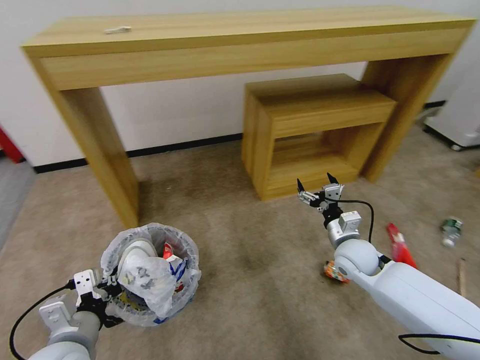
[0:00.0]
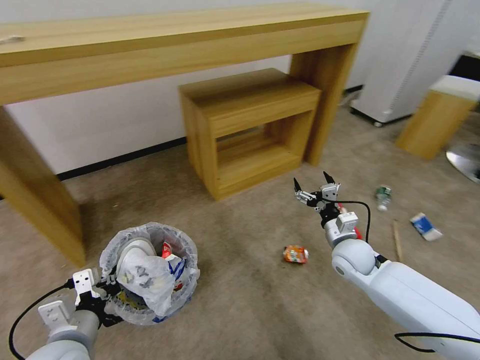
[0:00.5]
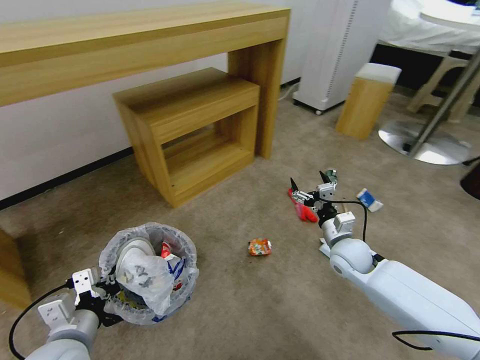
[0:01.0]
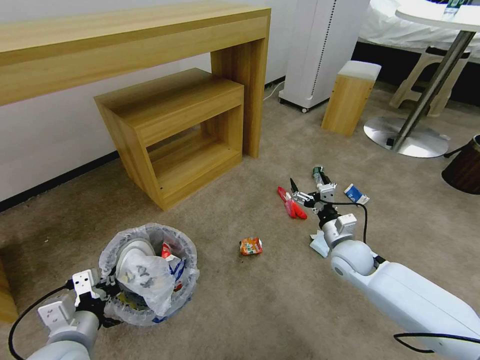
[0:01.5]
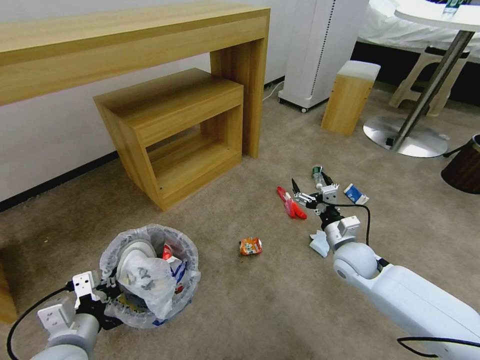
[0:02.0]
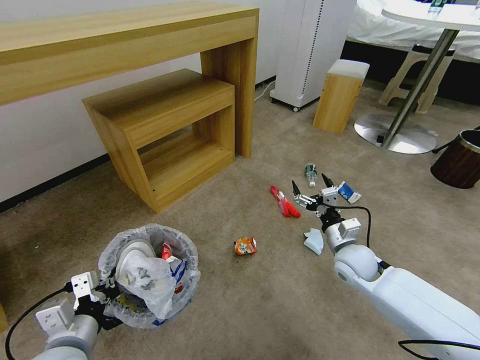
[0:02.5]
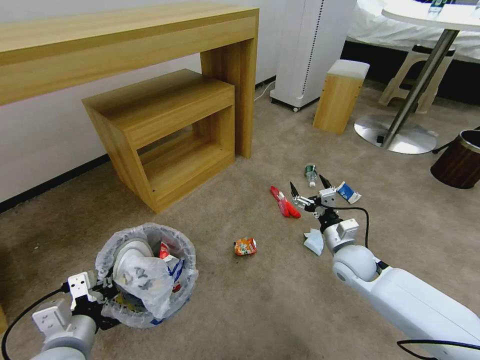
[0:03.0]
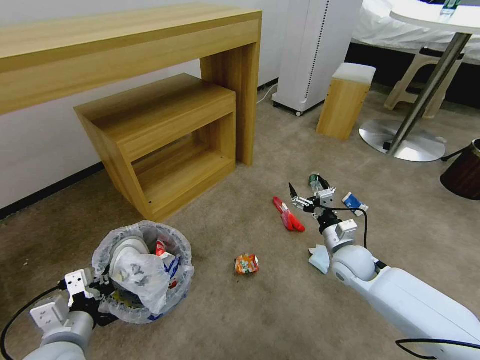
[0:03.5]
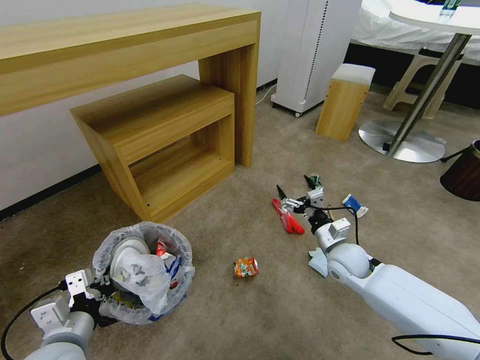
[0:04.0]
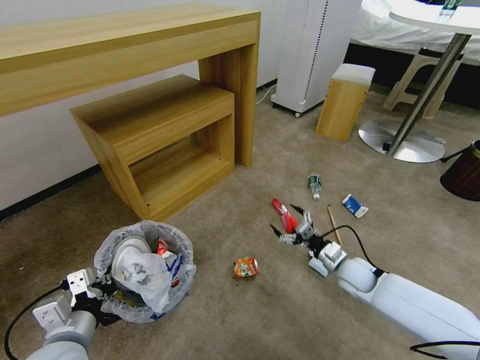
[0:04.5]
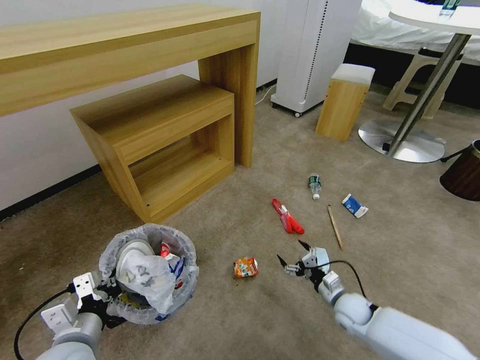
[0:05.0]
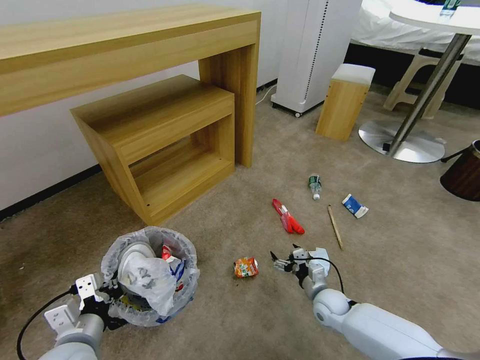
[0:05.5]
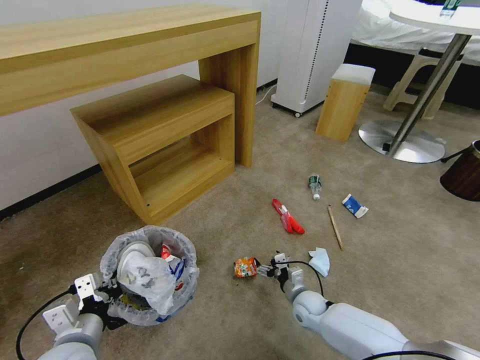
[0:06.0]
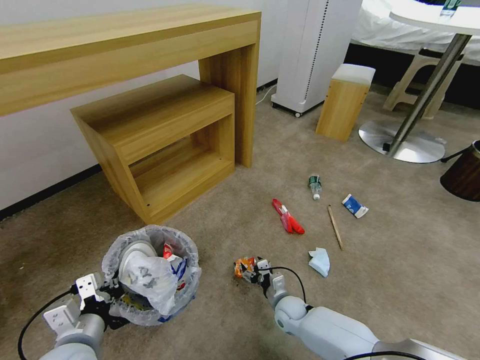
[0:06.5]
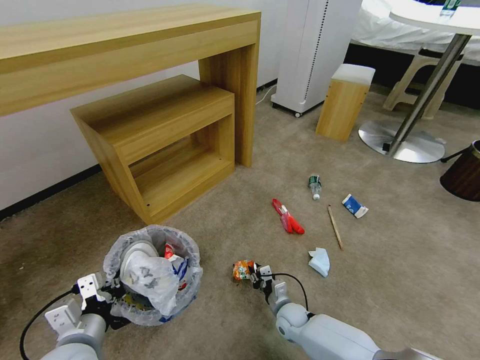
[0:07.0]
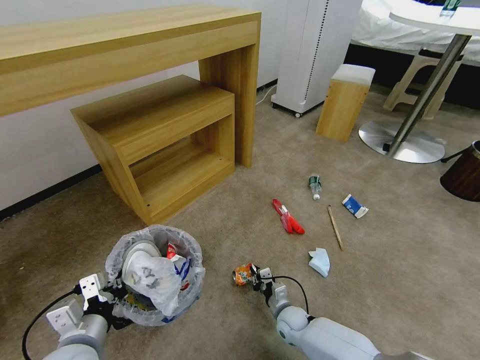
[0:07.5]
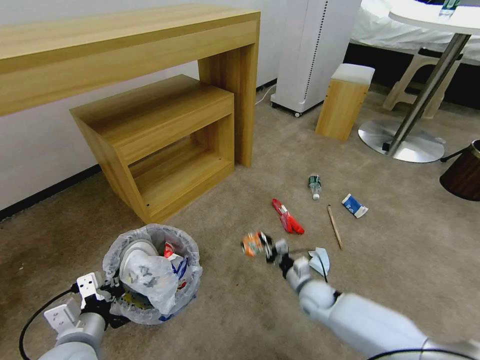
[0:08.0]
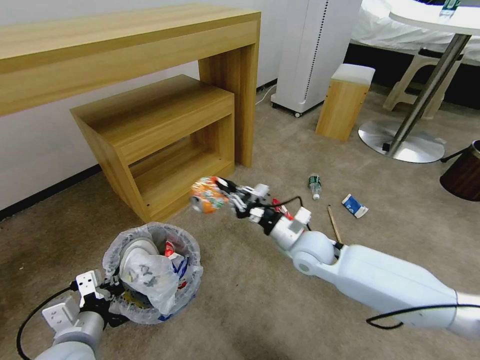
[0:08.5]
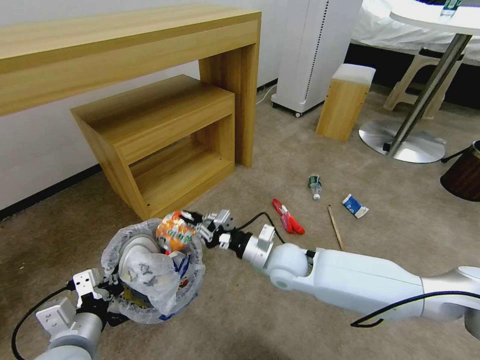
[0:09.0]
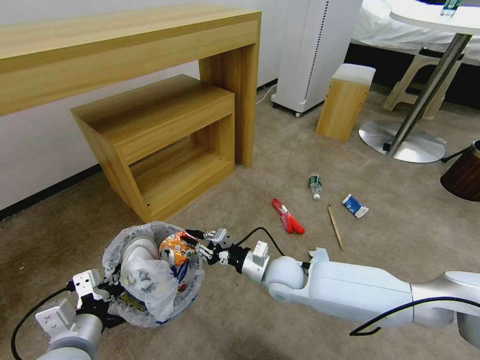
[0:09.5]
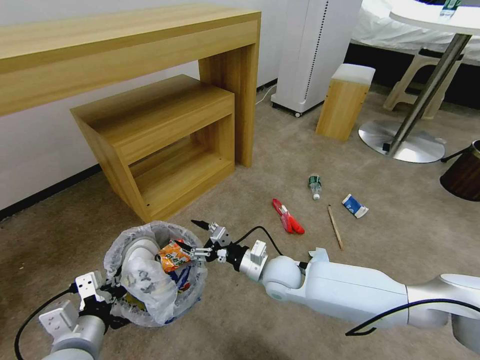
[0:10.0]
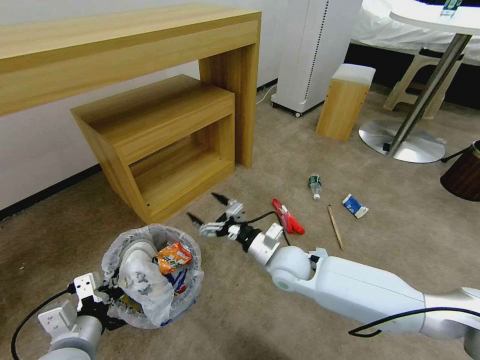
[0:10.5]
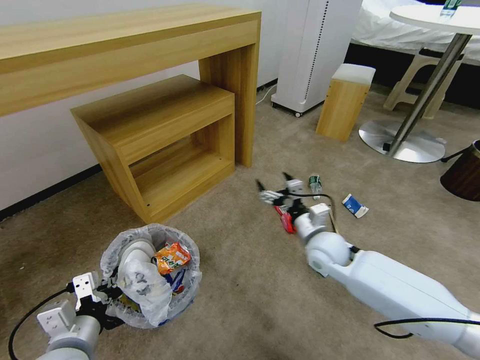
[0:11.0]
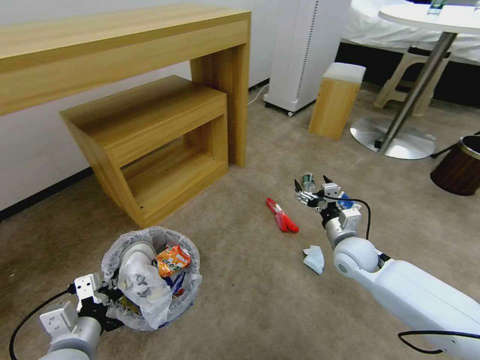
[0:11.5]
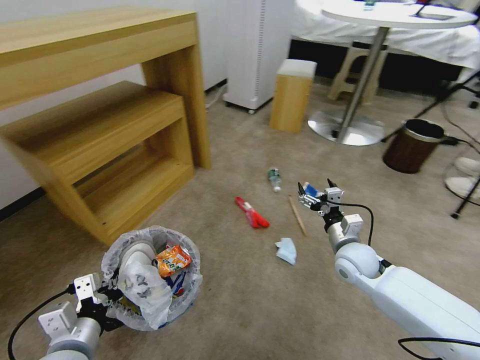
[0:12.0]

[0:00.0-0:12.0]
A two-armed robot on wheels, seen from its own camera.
Task of the whole recording: Pick up the trash bin and place the garbage on the floor into it.
0:04.0 to 0:06.0: The right gripper moves downward, approximately 20 cm.
0:06.0 to 0:08.0: The right gripper closes.
0:08.0 to 0:10.0: The right gripper heads upward and to the left, covering approximately 20 cm, and opens its fingers.
0:10.0 to 0:12.0: The right gripper heads to the right, covering roughly 20 cm.

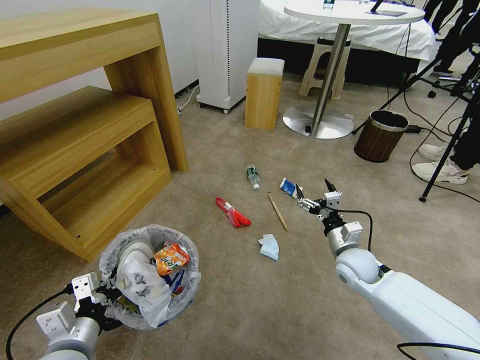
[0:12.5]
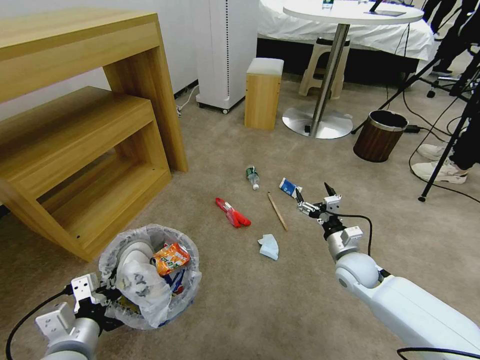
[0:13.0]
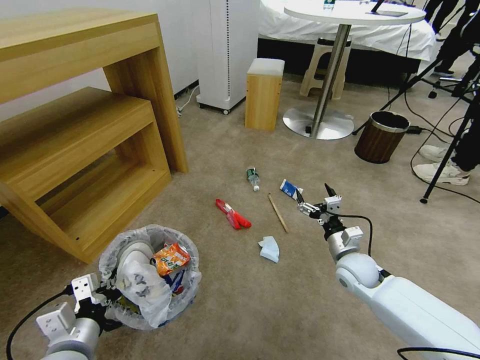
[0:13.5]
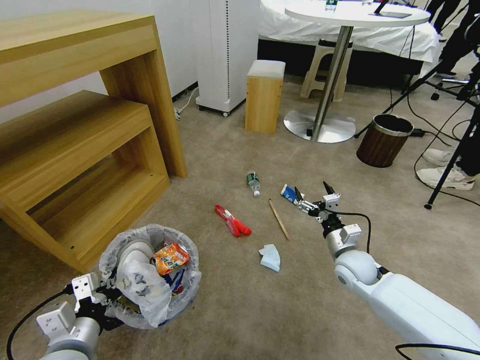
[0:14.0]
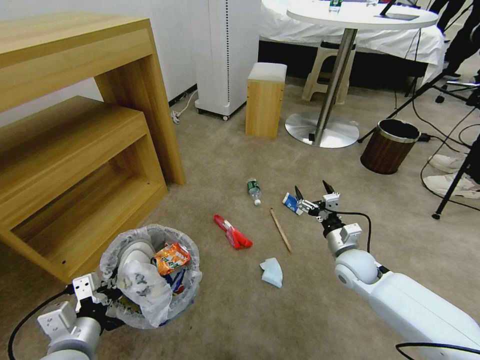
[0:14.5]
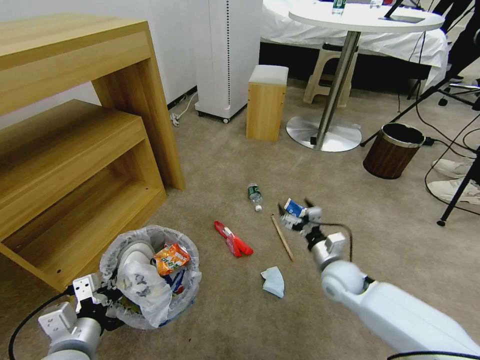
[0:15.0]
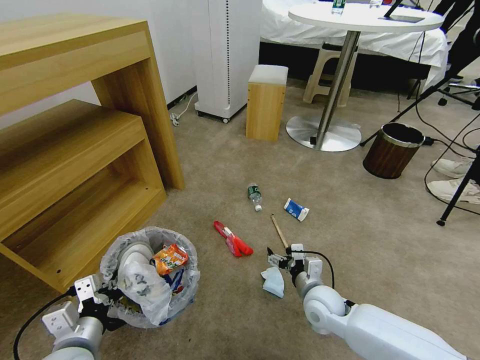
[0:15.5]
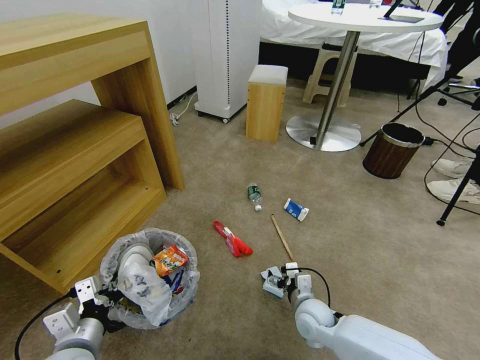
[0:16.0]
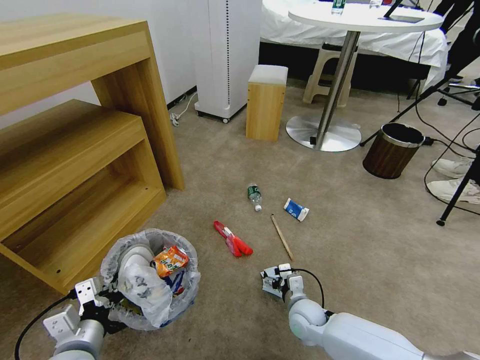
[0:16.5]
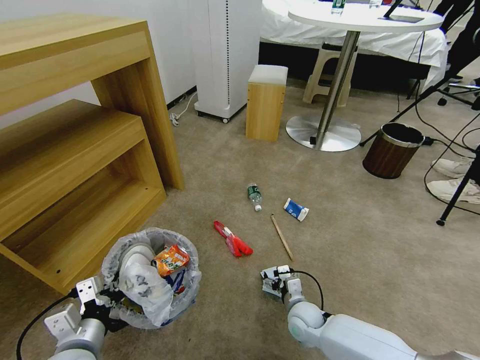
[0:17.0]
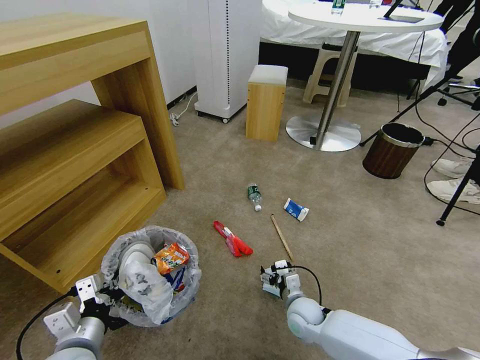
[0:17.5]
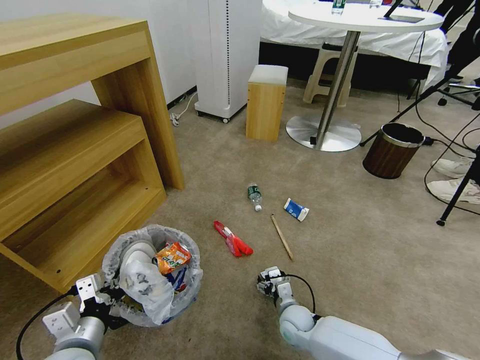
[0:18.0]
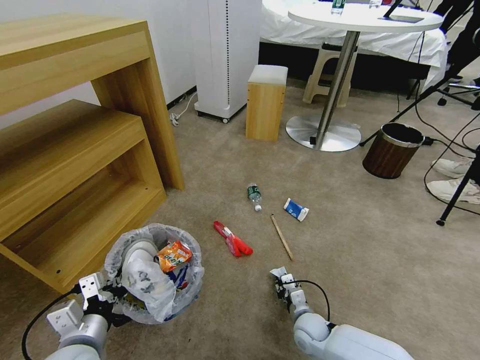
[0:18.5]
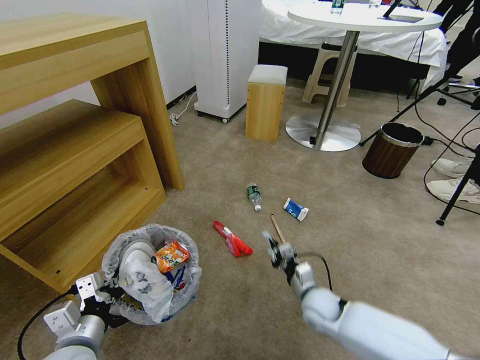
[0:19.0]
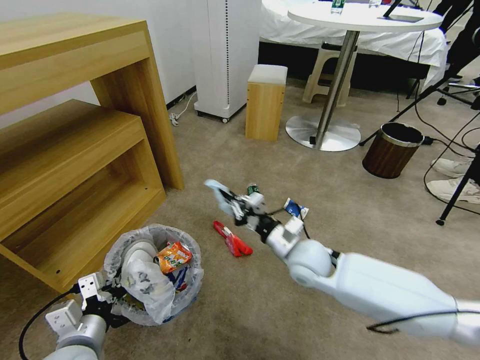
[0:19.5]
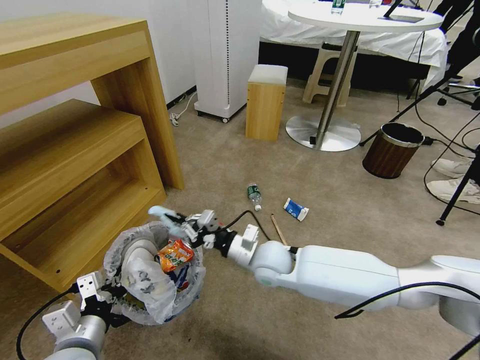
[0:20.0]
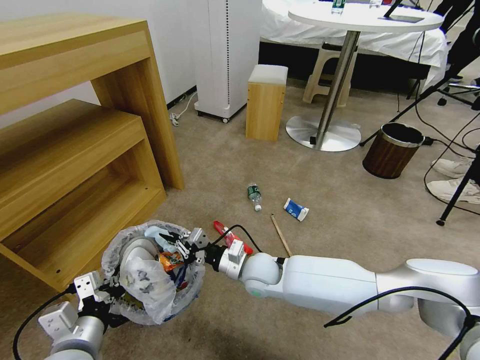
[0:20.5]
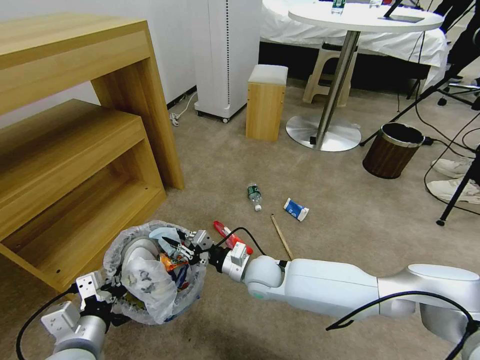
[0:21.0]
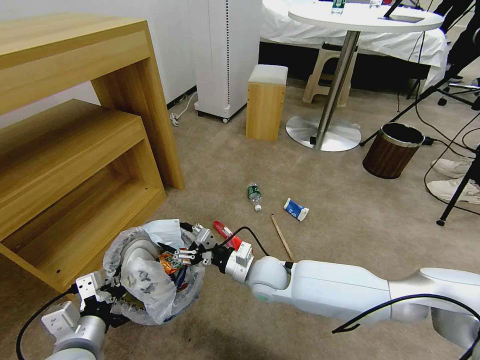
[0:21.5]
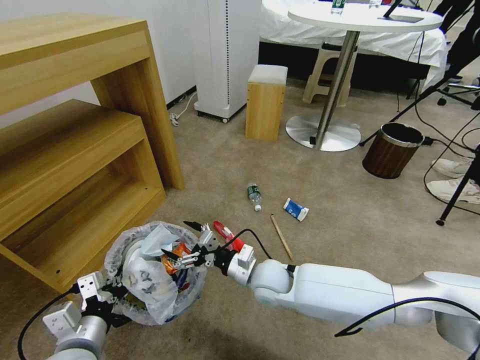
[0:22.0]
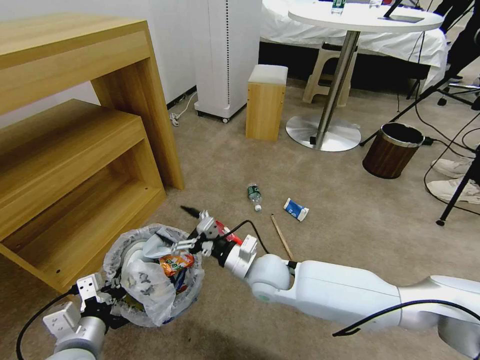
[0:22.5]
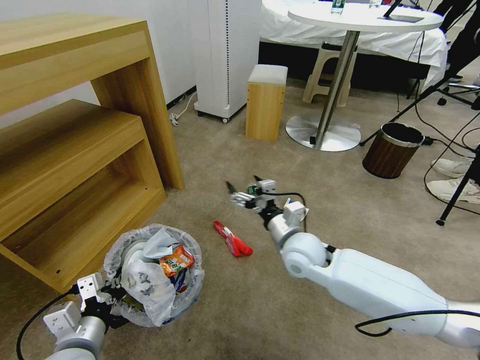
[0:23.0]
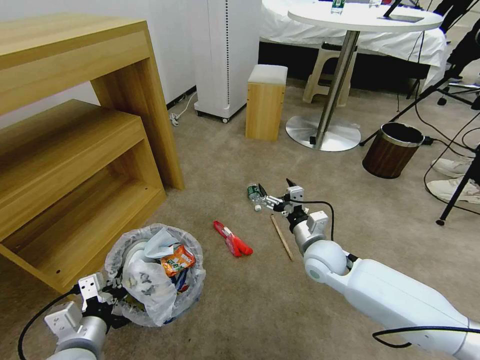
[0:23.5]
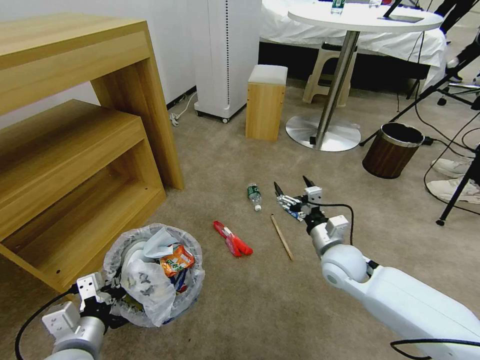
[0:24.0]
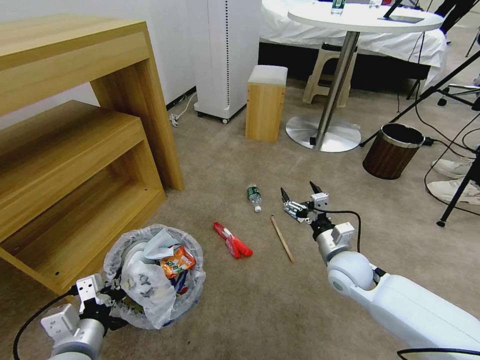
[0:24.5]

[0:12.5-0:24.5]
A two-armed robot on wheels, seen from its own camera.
Task of the whole recording: Pick up the trash bin and place the garbage on the floor into it.
0:14.5 to 0:16.5: The right gripper travels downward, to the left and backward by roughly 20 cm.
0:16.5 to 0:18.5: The right gripper shifts by approximately 5 cm, and closes its fingers.
0:18.5 to 0:20.5: The right gripper is displaced upward, to the left and forward by some 25 cm, and closes its fingers.
0:20.5 to 0:22.5: The right gripper opens.
0:22.5 to 0:24.5: The right gripper shifts some 20 cm to the right.

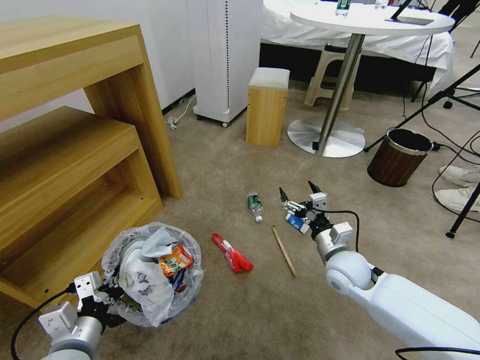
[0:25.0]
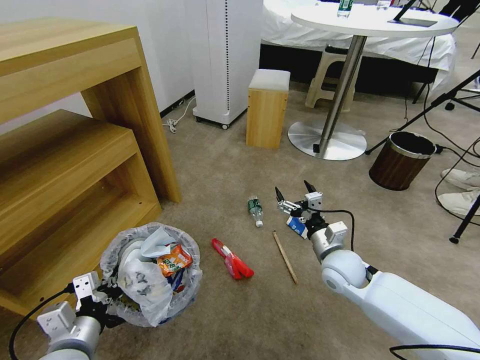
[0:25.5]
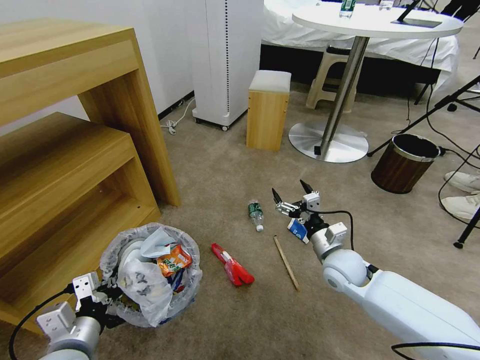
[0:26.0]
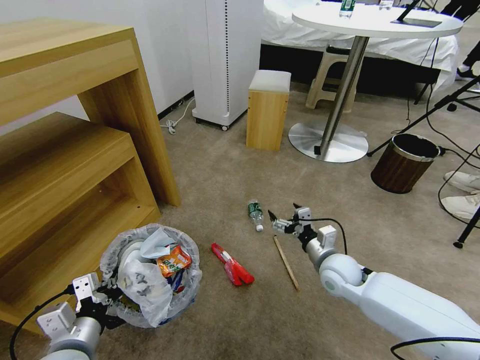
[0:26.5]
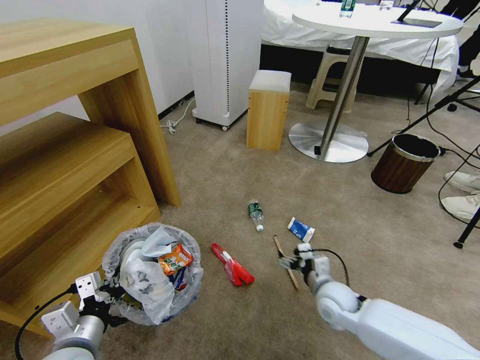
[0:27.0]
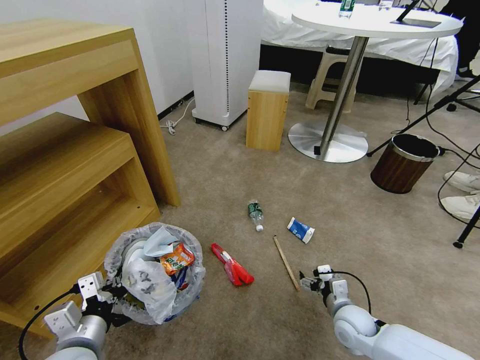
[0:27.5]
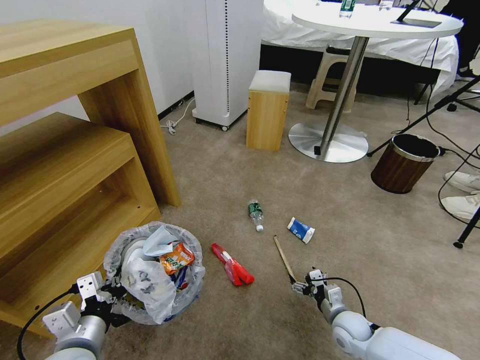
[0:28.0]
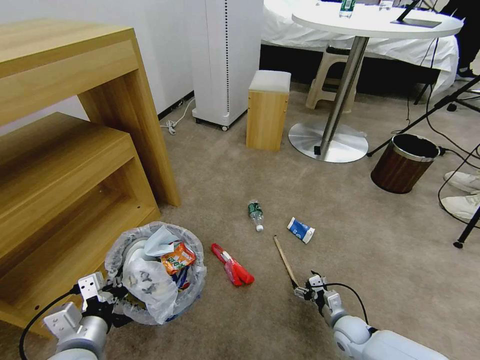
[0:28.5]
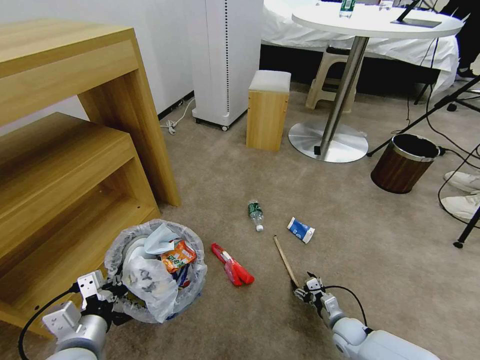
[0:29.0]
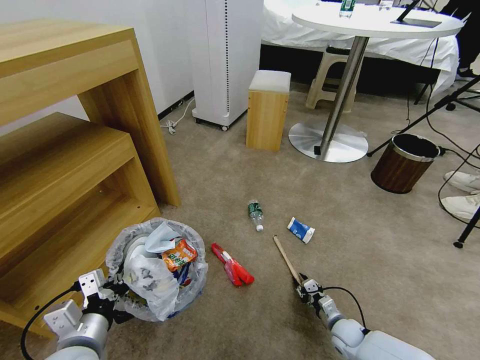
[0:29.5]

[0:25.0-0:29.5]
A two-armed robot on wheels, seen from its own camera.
Task of the whole recording: Pick up the trash bin and place the garbage on the floor into it.
0:25.0 to 0:27.0: The right gripper travels downward by roughly 10 cm.
0:27.0 to 0:29.5: The right gripper moves downward and to the right, about 20 cm, and closes up.
